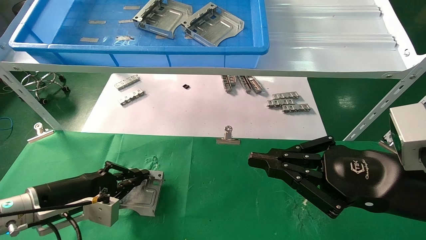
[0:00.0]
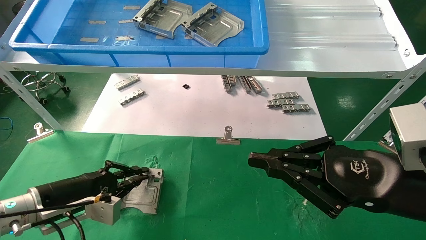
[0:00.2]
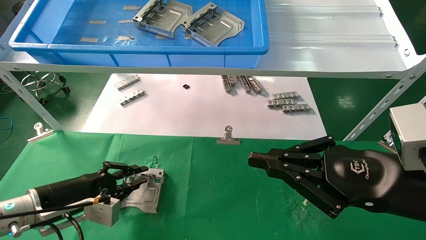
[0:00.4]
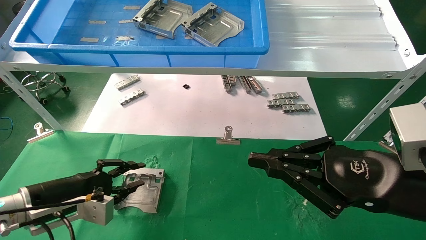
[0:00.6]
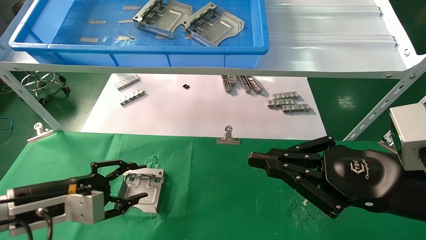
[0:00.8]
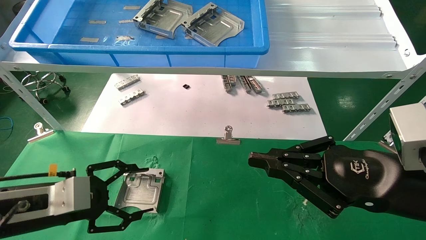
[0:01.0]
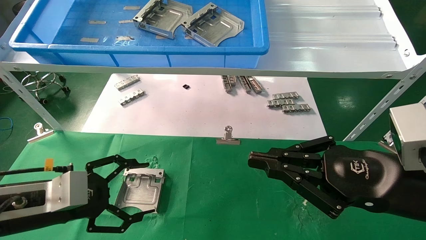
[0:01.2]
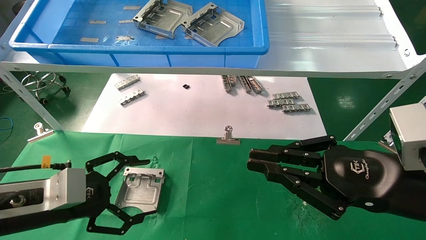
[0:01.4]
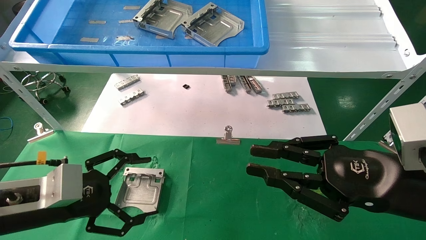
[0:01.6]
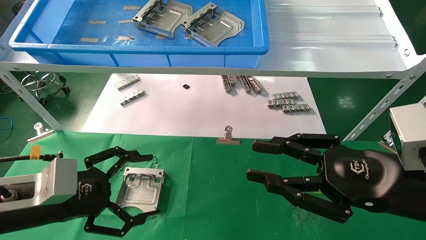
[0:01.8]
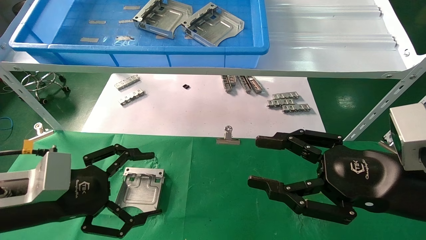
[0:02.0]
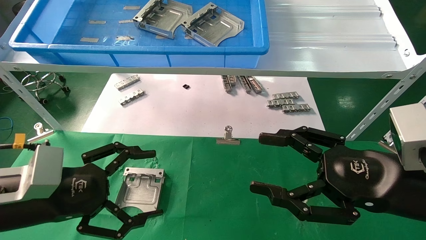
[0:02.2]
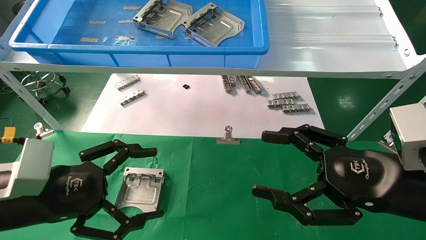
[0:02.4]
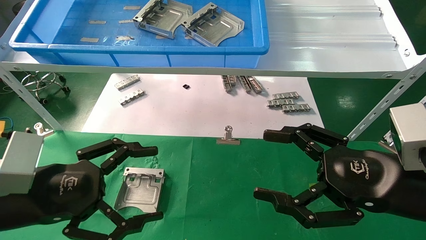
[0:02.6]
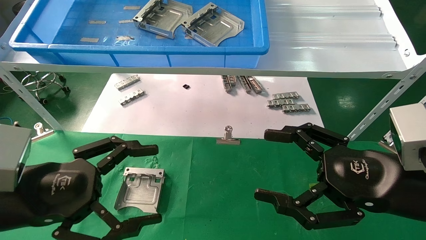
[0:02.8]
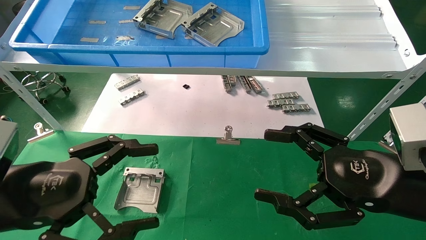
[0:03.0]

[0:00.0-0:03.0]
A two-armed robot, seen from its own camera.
Task of the whole recording: use the mechanical arm to pick up the parts and place them on the table.
0:00.0 to 0:01.6: The left gripper shifts roughly 10 cm backward and upward, and opens its fingers.
0:01.6 to 0:03.0: The right gripper opens up. The left gripper is displaced upward by about 5 cm.
